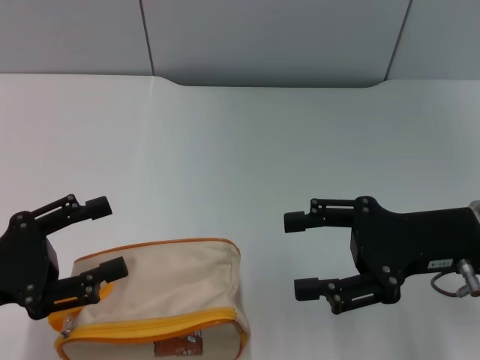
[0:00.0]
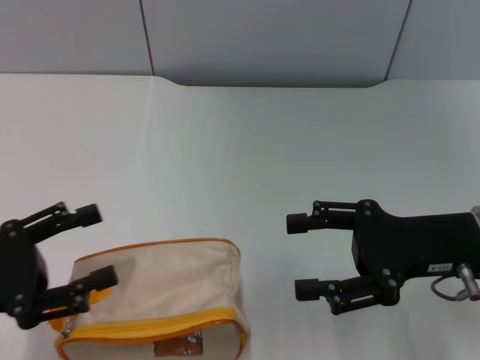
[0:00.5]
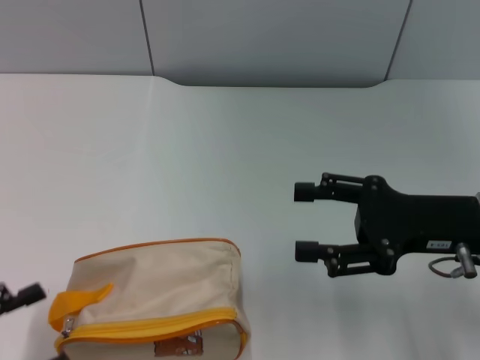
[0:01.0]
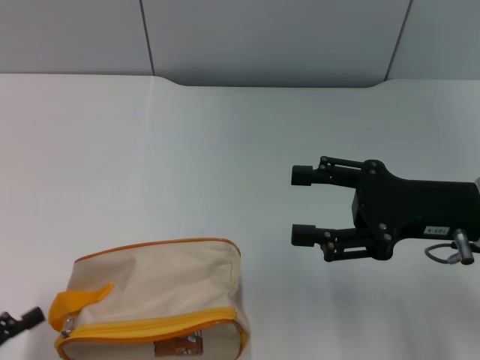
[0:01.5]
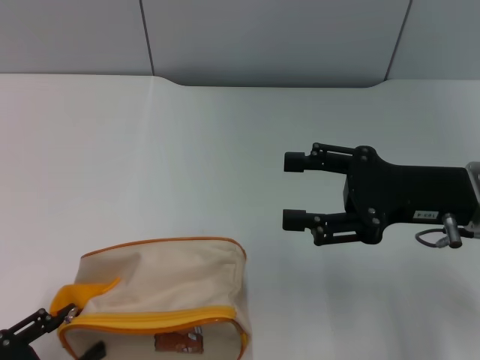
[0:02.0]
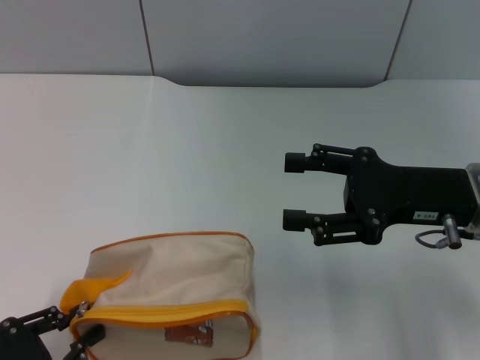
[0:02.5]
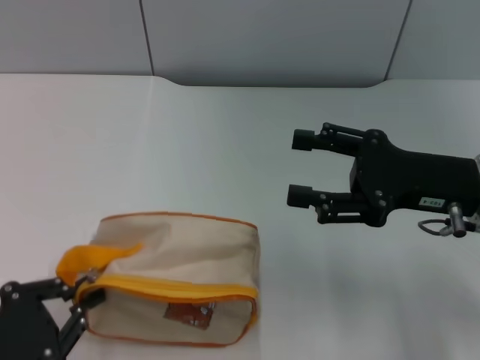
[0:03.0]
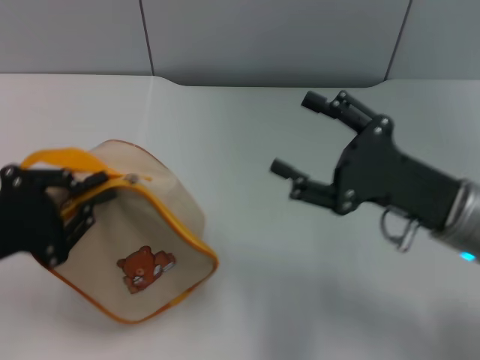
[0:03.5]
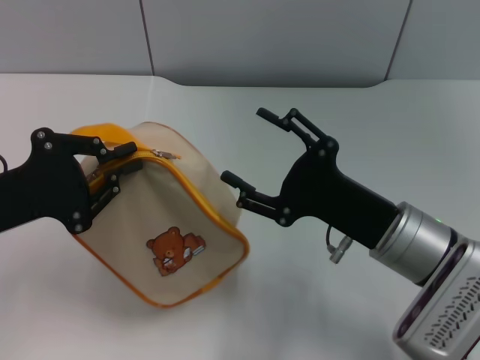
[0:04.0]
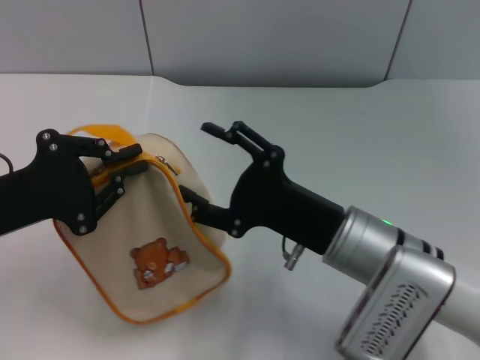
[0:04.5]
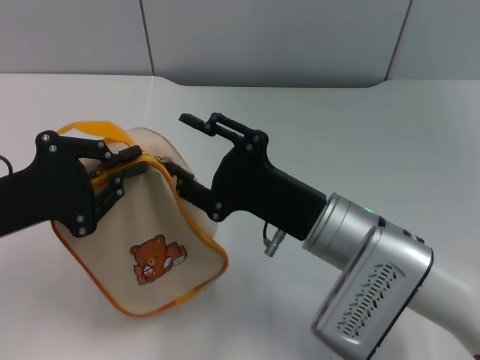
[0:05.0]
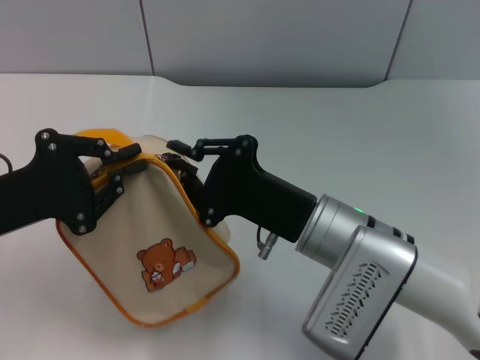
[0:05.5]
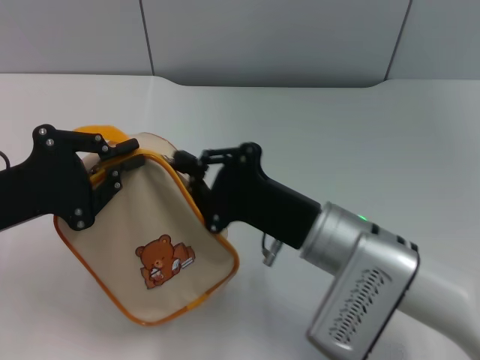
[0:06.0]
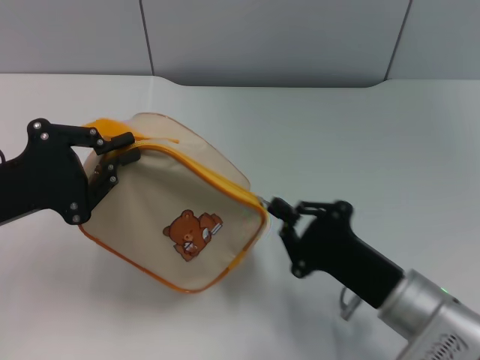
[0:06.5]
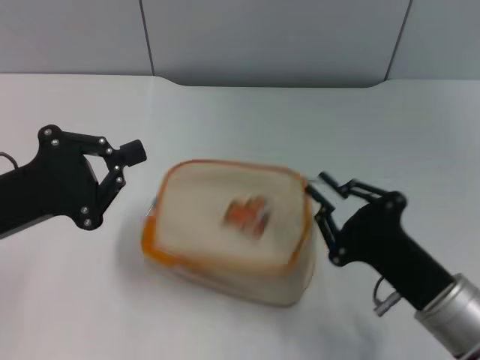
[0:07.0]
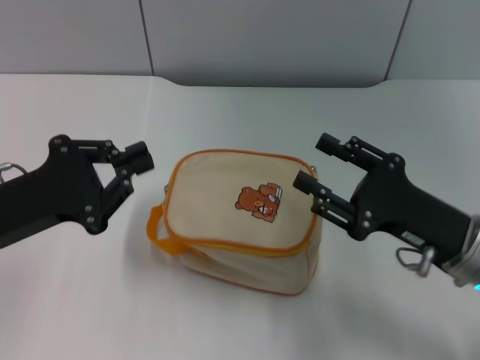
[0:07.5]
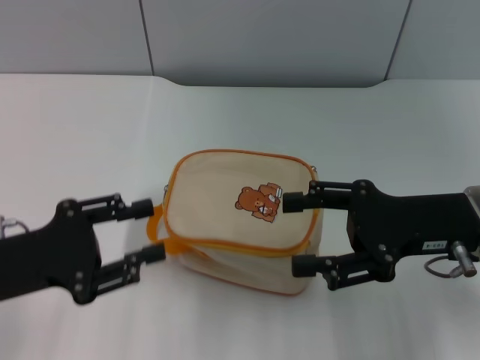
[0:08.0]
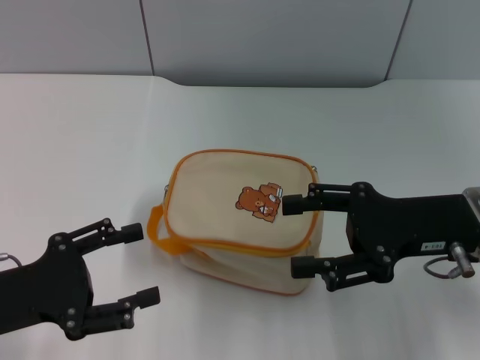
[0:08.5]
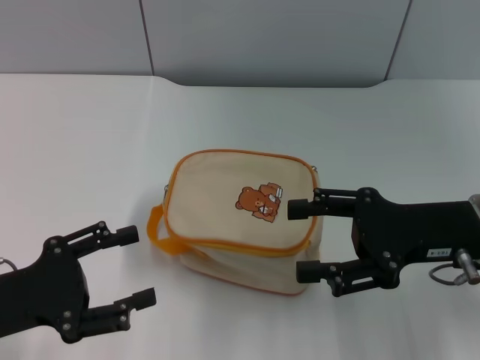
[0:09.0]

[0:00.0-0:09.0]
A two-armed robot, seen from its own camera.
Step, 0:00.0 to 0:03.0: Pick up the bag with left gripper.
Step, 0:03.5 to 0:07.0: Unzip the zipper of bag with right gripper.
0:00.0 to 0:02.0: The left gripper is displaced backward and downward by some 15 cm.
0:02.0 to 0:04.5: The left gripper goes approximately 20 cm forward and upward, and closes up. Meanwhile the right gripper heads to the left and downward, covering about 15 cm.
0:04.5 to 0:07.0: The right gripper heads to the right and backward, covering some 10 cm, and closes its fingers.
0:07.0 to 0:09.0: The left gripper moves backward, about 5 cm, and opens up, while the right gripper is displaced upward and forward by some 10 cm, and opens.

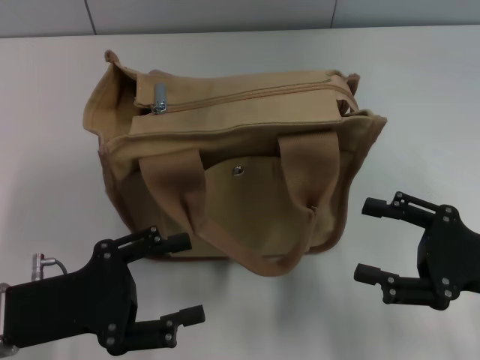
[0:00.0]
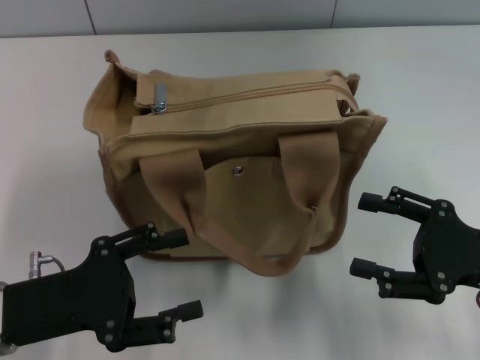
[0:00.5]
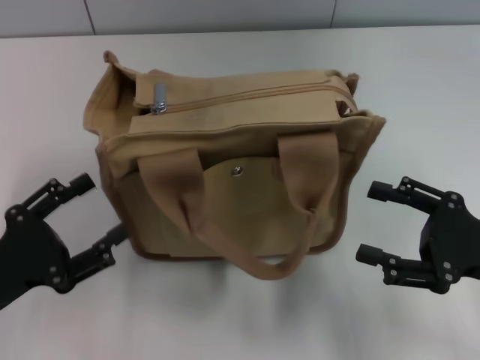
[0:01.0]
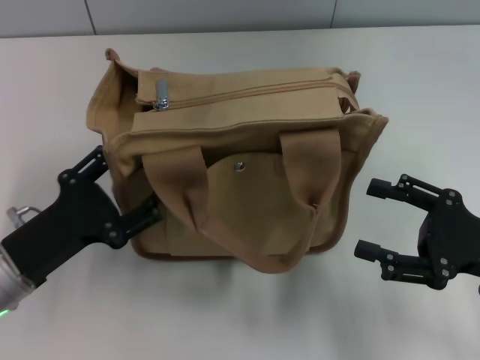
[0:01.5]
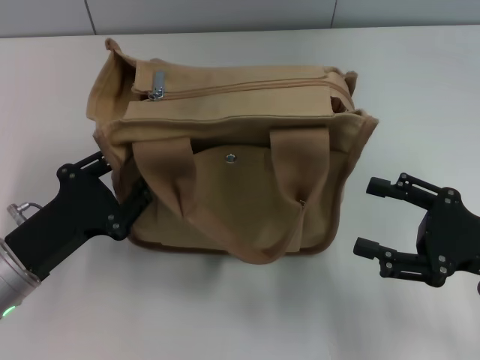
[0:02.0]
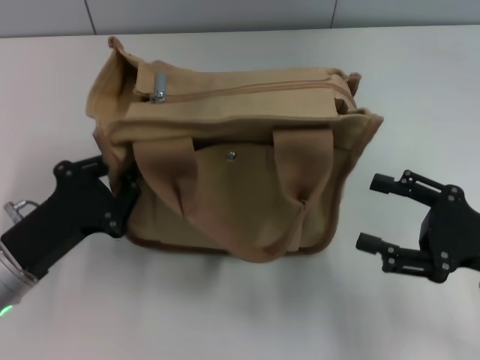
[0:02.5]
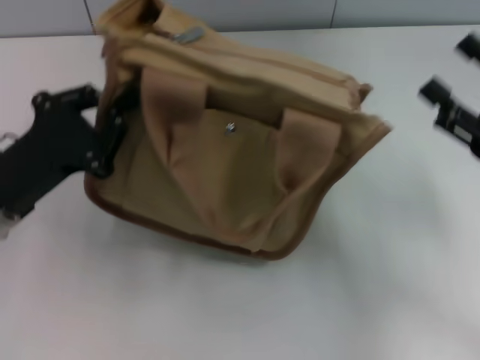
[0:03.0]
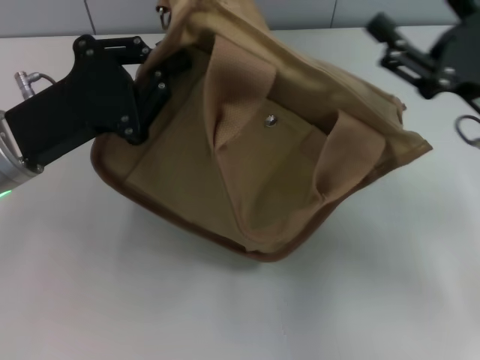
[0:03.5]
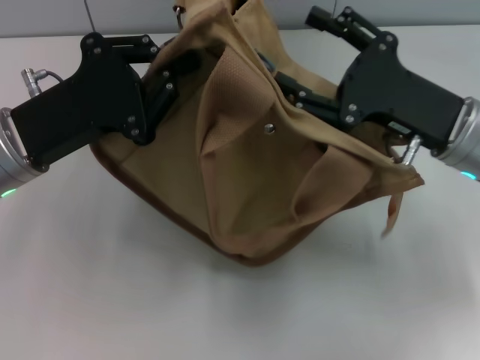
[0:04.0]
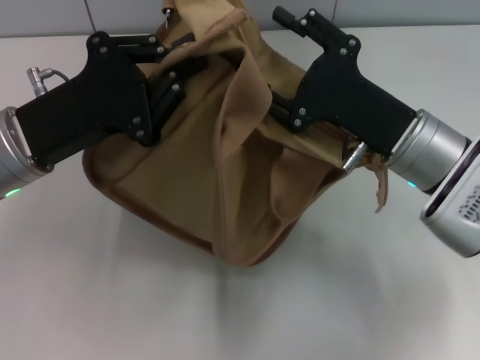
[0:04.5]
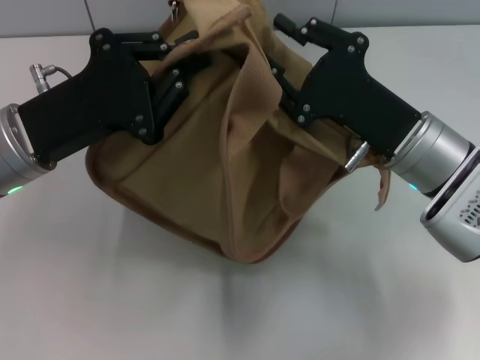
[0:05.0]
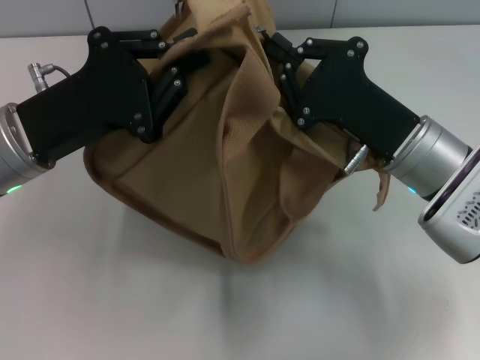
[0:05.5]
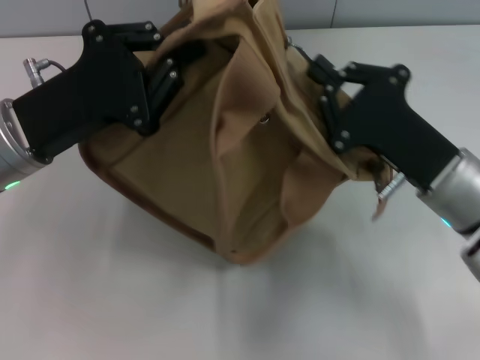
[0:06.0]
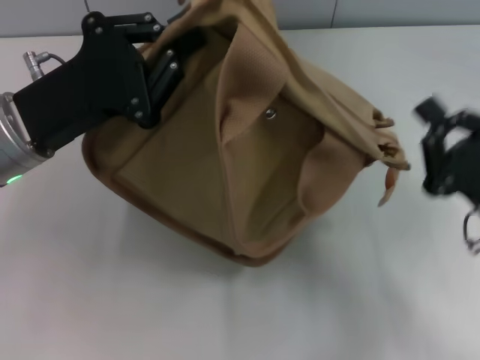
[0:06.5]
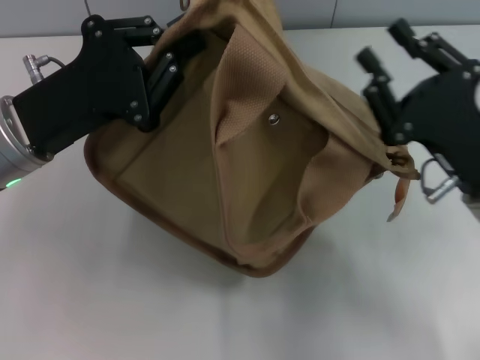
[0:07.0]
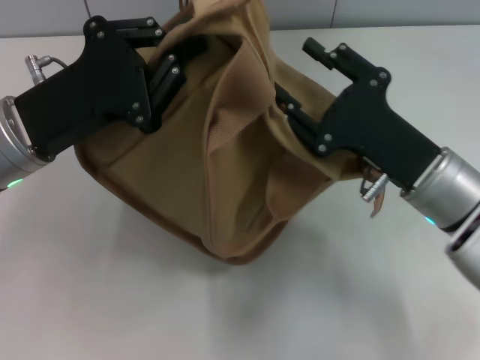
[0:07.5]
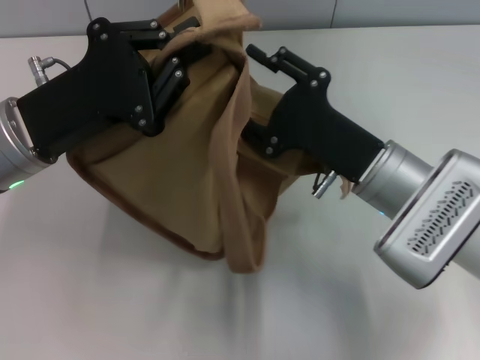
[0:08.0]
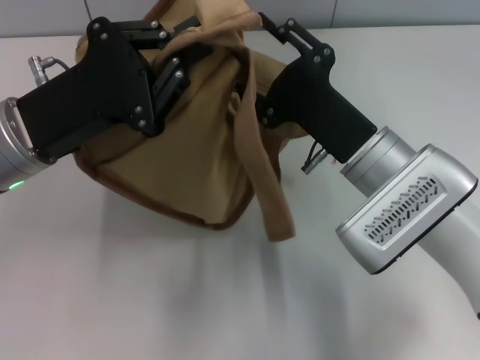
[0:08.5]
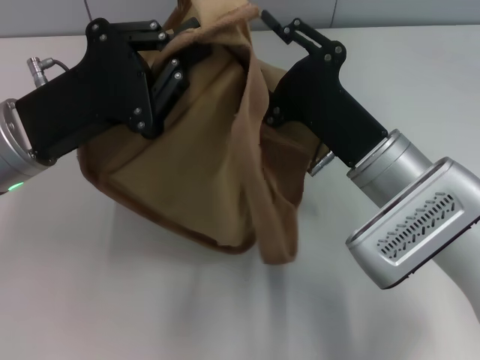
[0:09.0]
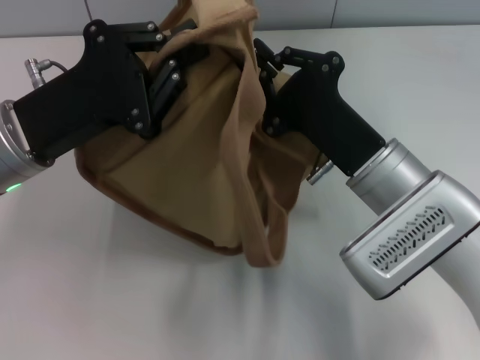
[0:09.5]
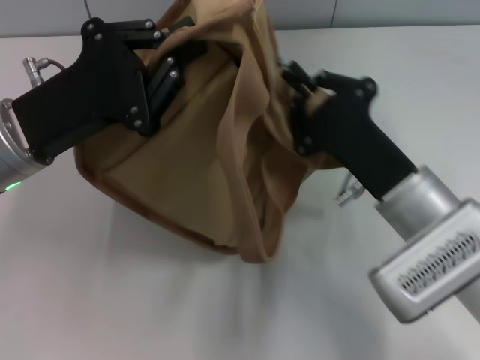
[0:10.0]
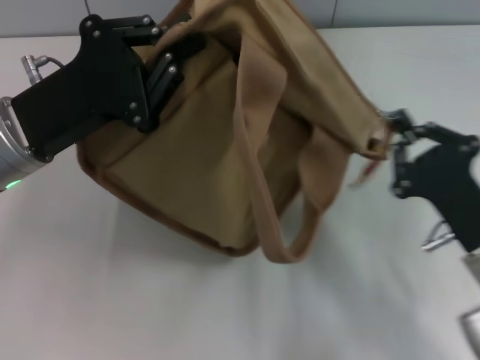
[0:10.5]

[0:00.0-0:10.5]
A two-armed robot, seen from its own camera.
0:00.0 to 0:02.0: The left gripper closes its fingers.
0:02.0 to 0:04.0: The left gripper is displaced upward and forward by roughly 10 cm, and closes. Meanwhile the right gripper moves forward and to the left, roughly 10 cm.
0:04.0 to 0:06.5: The right gripper travels backward by roughly 10 cm, and closes.
0:06.5 to 0:08.5: The right gripper moves to the left and forward, some 15 cm, and opens its fingers.
0:08.5 to 0:10.5: The right gripper is displaced to the right and backward by approximately 15 cm, and closes.

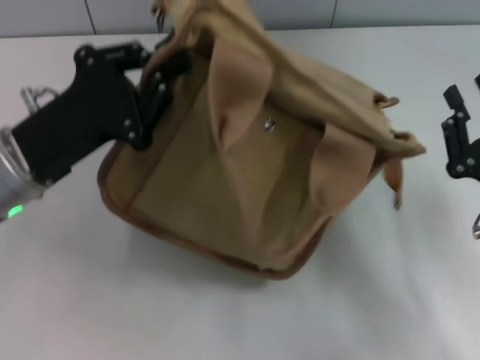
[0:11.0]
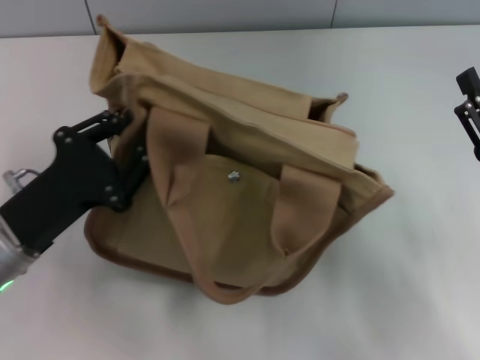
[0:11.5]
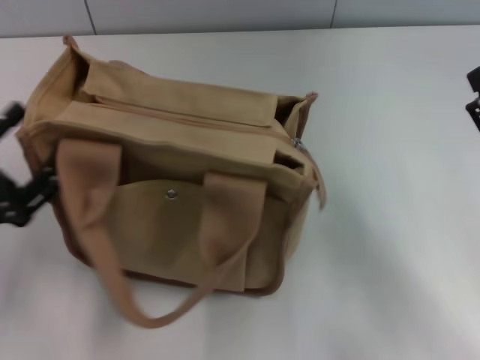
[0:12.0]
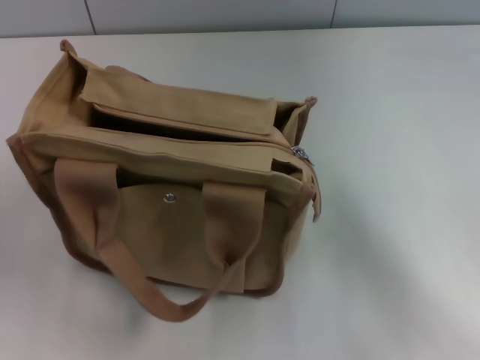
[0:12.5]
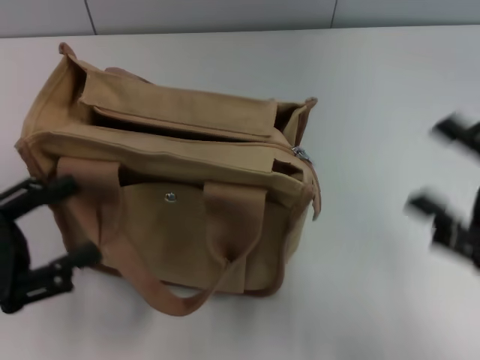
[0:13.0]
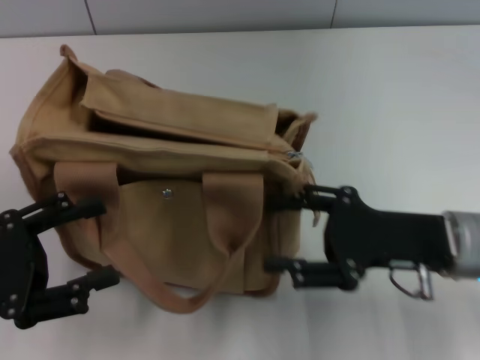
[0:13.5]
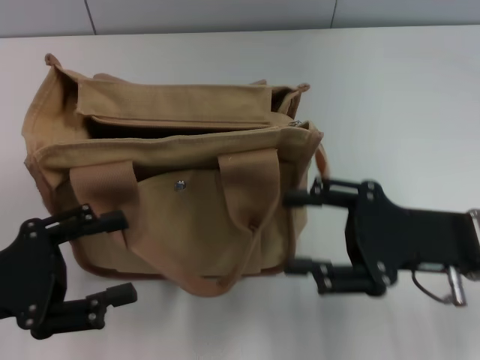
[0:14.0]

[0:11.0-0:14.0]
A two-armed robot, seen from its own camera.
Step, 0:11.0 to 0:12.0: Grab the bag with your left hand.
0:11.0 to 0:12.5: The left gripper goes about 20 cm to the left and backward, and opens. Meanwhile the right gripper opens its fingers.
0:12.5 to 0:14.0: The left gripper travels to the right by about 5 cm. The right gripper shifts some 5 cm to the left.
